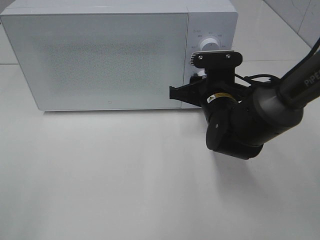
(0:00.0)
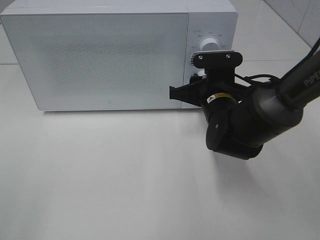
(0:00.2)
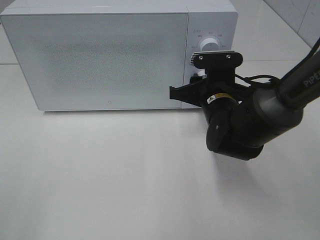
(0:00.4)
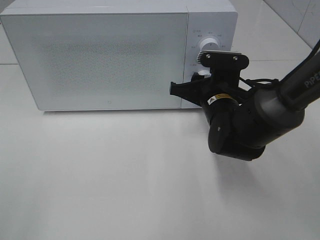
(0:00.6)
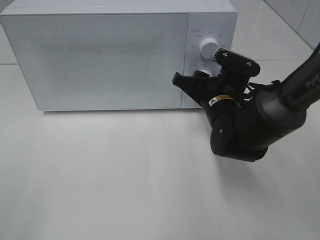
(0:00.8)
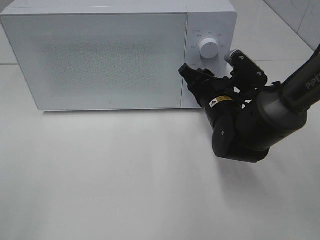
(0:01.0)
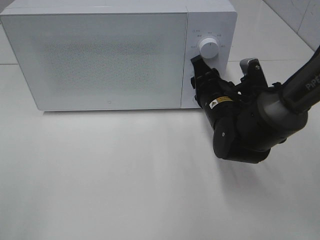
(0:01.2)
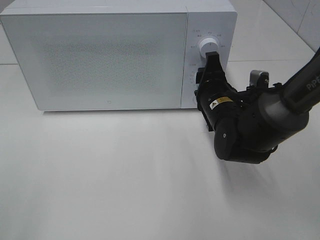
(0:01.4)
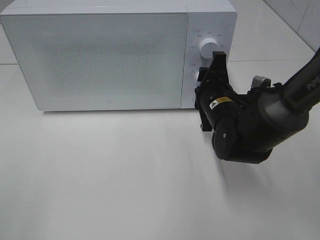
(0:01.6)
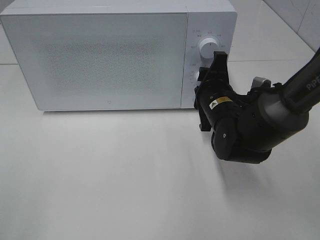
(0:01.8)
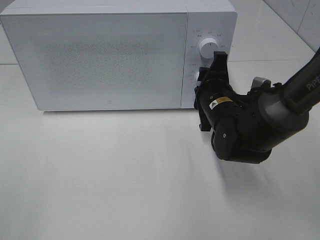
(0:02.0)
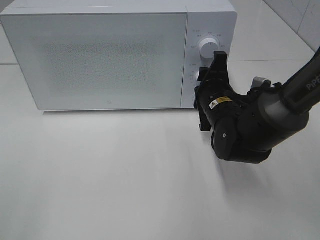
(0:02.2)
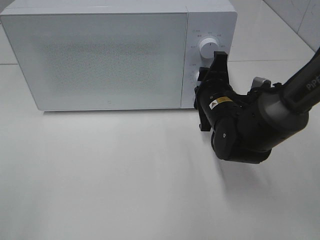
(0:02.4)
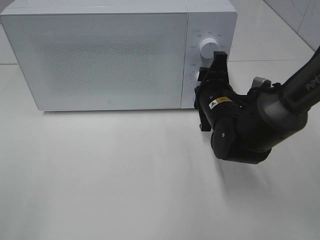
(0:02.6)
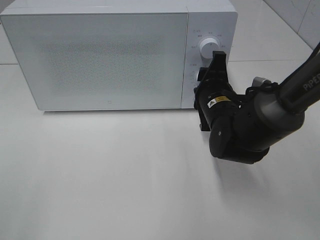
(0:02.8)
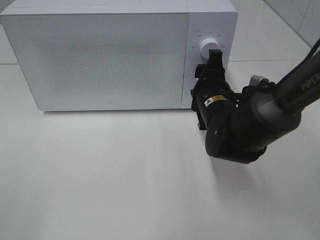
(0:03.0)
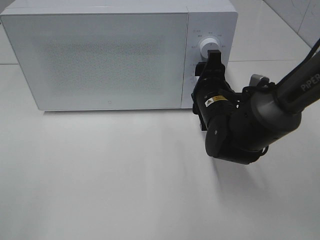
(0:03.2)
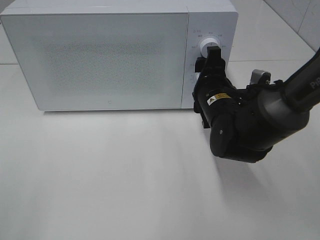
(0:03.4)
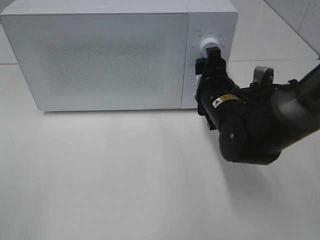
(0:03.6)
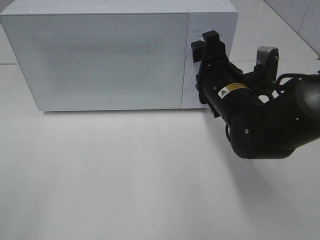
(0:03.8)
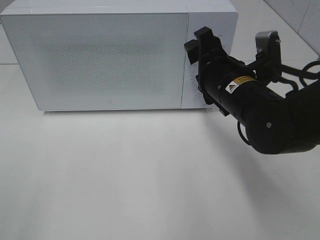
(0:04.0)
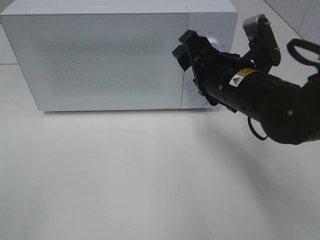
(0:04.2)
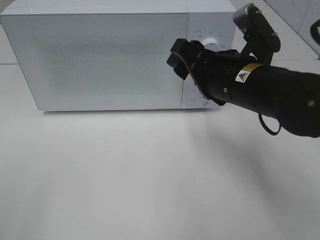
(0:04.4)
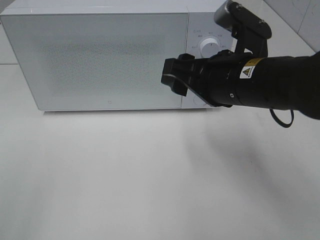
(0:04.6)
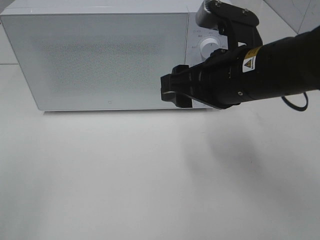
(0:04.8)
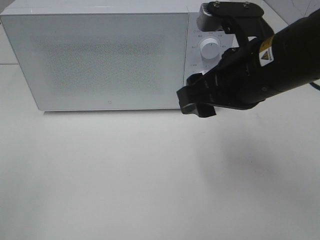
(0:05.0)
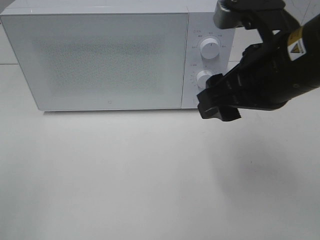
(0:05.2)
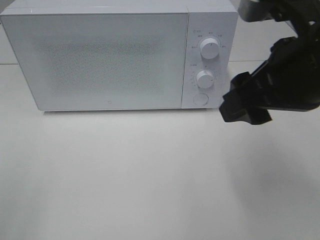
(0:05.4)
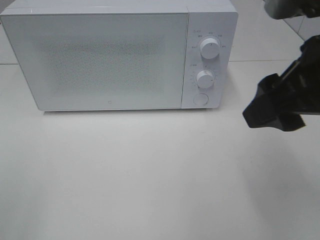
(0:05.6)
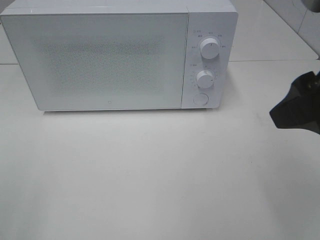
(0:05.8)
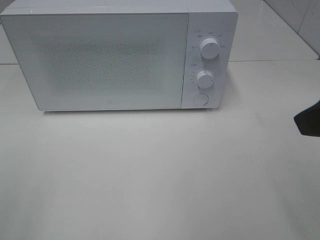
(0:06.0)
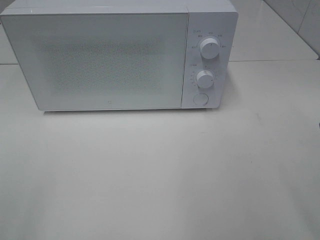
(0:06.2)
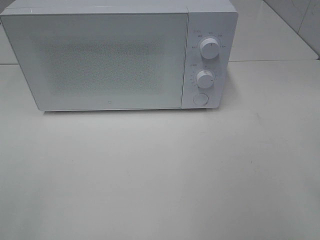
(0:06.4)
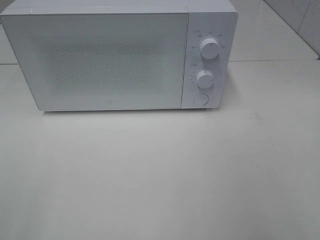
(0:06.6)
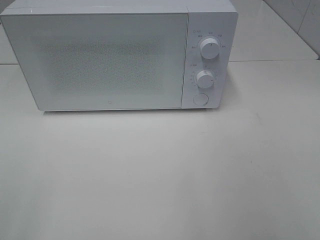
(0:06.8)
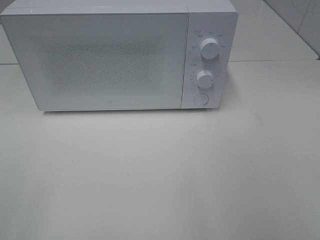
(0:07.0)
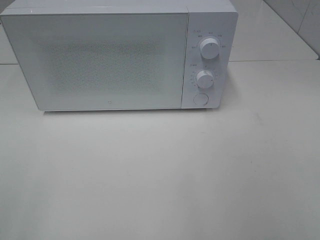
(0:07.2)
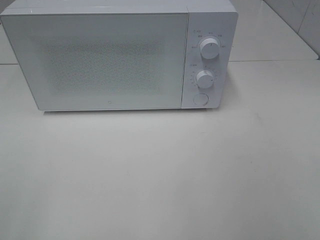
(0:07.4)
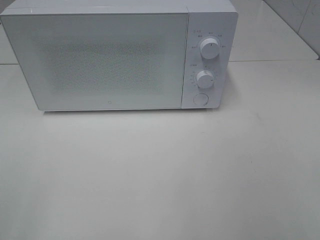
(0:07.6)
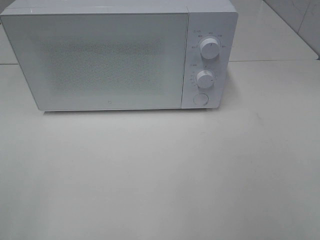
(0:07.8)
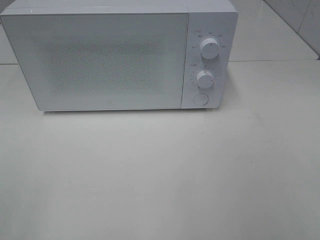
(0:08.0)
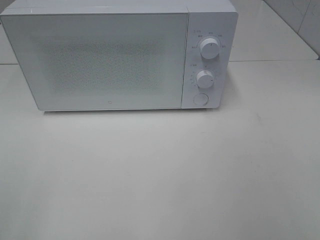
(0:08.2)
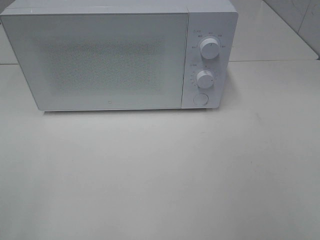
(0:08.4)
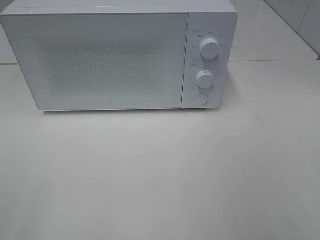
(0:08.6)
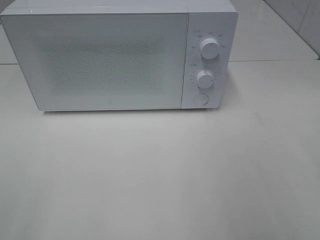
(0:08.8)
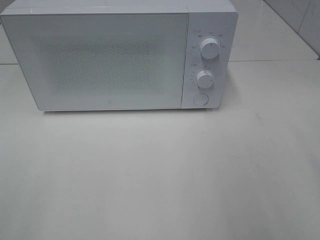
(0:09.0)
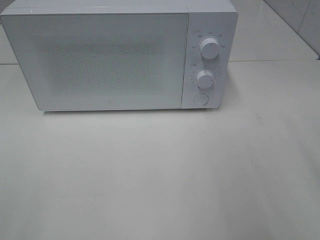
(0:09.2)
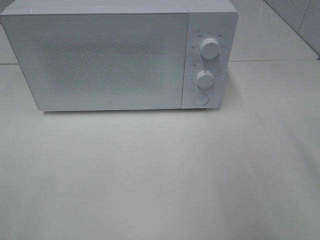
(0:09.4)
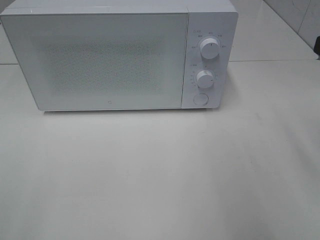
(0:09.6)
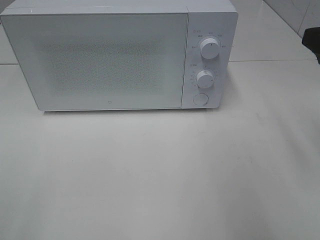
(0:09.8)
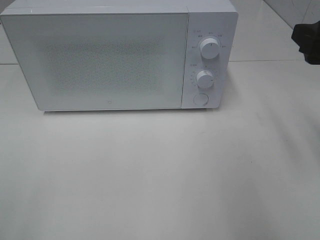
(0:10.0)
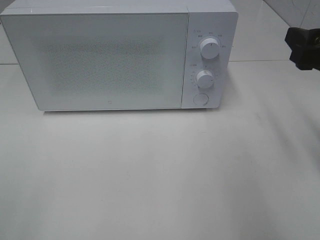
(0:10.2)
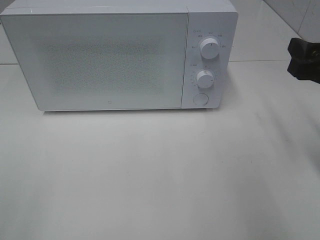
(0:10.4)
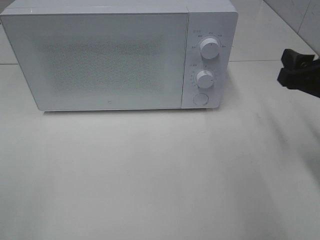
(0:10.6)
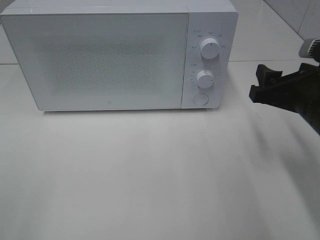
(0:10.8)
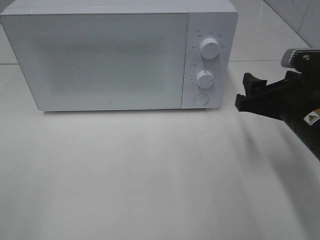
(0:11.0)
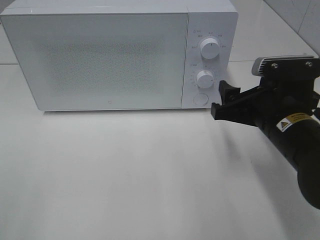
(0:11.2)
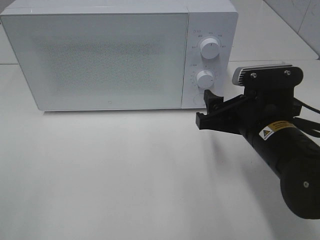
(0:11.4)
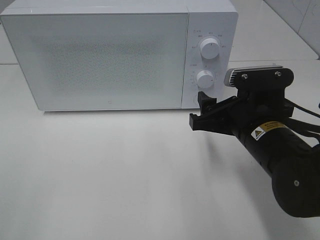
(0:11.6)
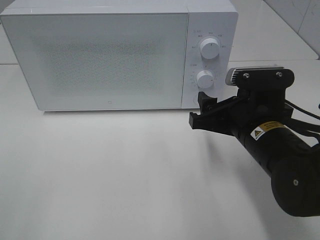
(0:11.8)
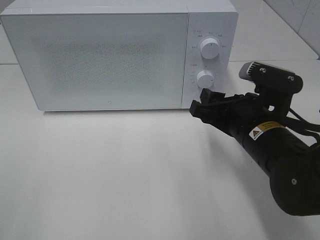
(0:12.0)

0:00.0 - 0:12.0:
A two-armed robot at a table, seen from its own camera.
Task of the whole recording: Heat the burger.
Step, 0:00.0 - 0:03.2: Right hand: twist timer button.
0:01.6 - 0:03.0: The two grippers keep their place.
0:03.0 - 0:04.4: The right gripper heads upward and backward, covering about 10 cm.
0:04.4 - 0:06.0: The right gripper goes about 20 cm backward, upward and to the right.
0:06.0 - 0:07.6: The right gripper goes approximately 15 cm backward and to the right.
0:09.0 - 0:10.4: The right gripper travels forward and downward by about 15 cm.
0:10.4 - 0:12.0: The right gripper travels to the left and downward by about 15 cm.

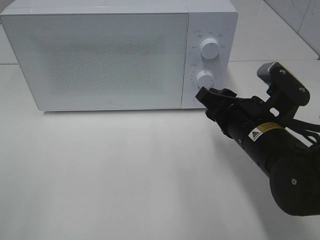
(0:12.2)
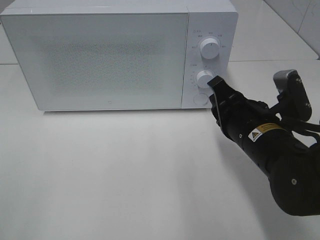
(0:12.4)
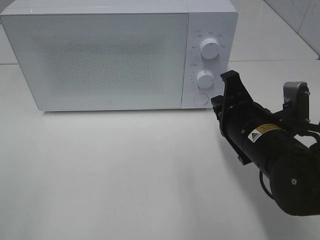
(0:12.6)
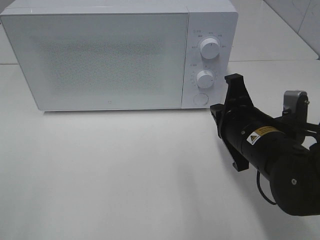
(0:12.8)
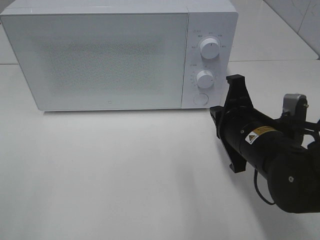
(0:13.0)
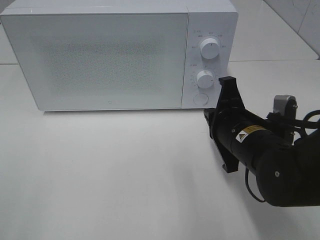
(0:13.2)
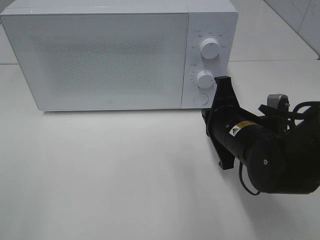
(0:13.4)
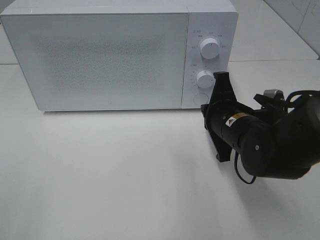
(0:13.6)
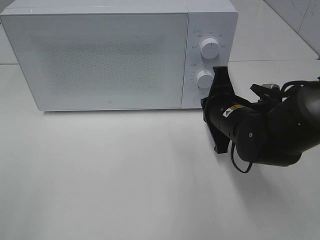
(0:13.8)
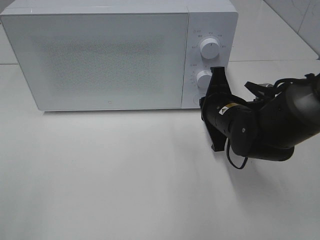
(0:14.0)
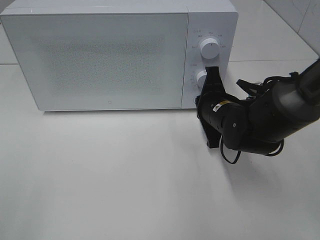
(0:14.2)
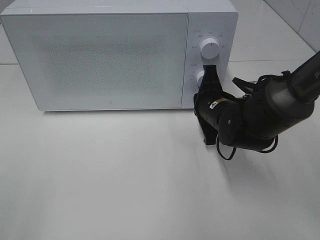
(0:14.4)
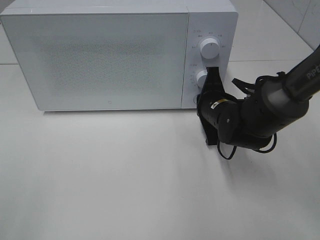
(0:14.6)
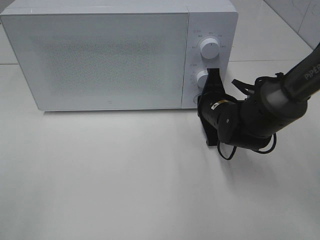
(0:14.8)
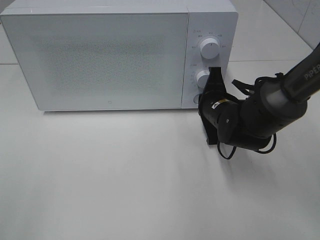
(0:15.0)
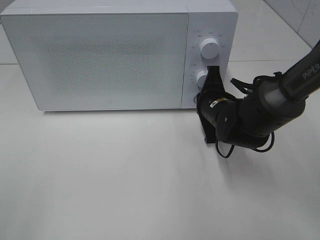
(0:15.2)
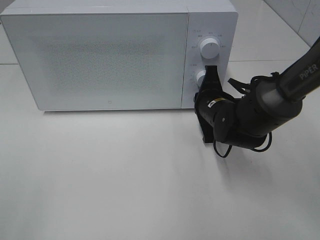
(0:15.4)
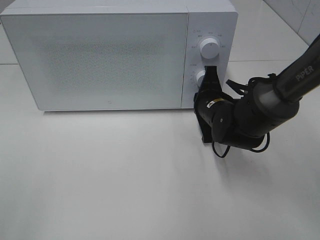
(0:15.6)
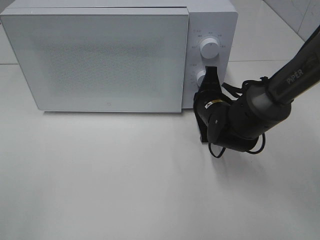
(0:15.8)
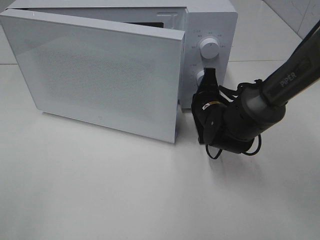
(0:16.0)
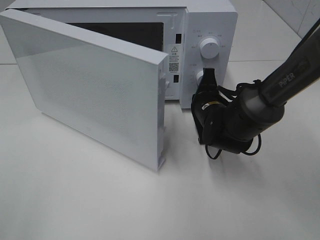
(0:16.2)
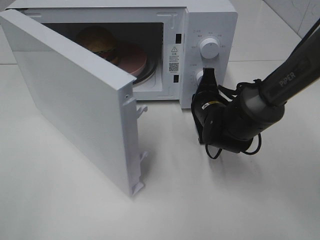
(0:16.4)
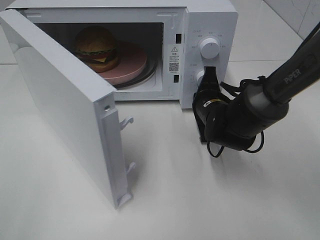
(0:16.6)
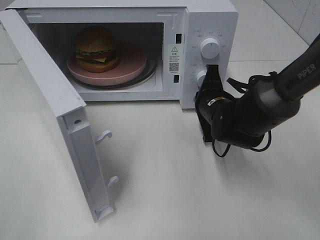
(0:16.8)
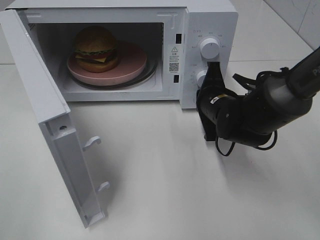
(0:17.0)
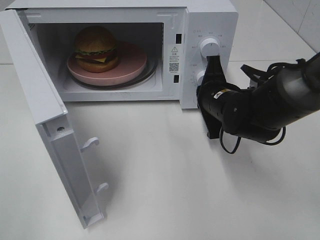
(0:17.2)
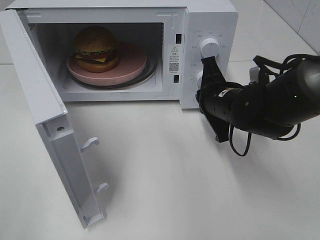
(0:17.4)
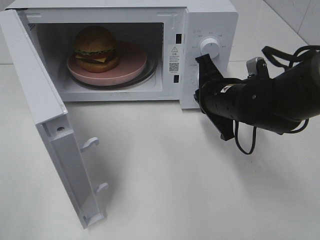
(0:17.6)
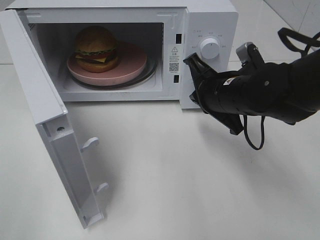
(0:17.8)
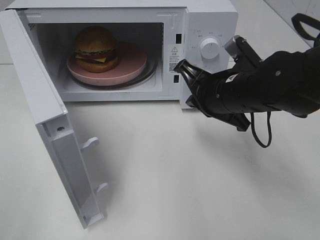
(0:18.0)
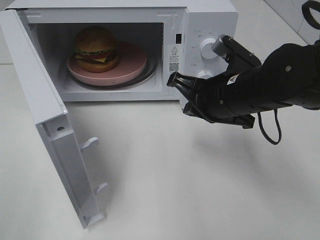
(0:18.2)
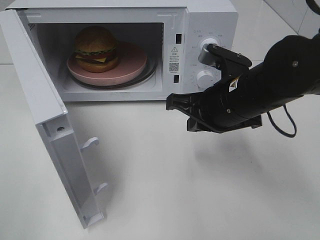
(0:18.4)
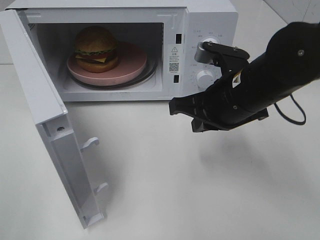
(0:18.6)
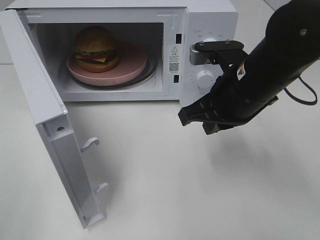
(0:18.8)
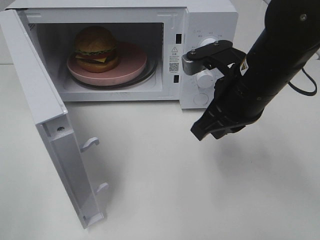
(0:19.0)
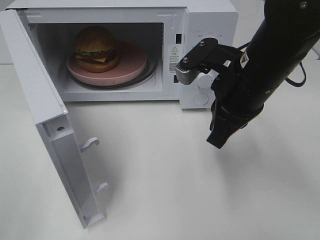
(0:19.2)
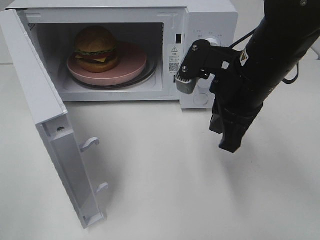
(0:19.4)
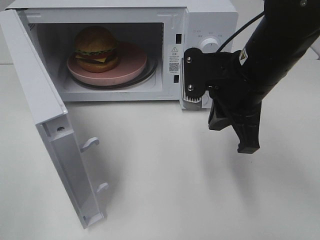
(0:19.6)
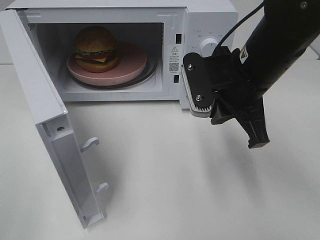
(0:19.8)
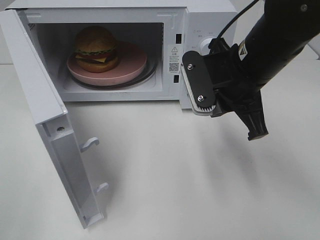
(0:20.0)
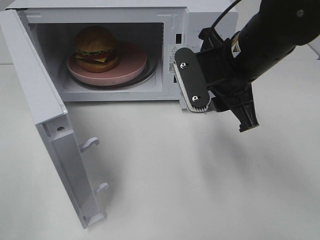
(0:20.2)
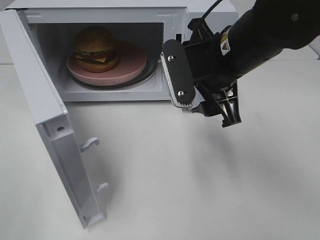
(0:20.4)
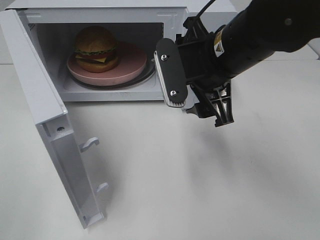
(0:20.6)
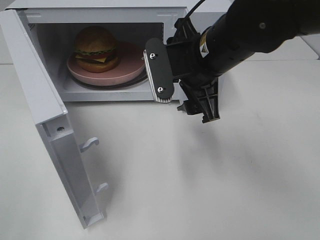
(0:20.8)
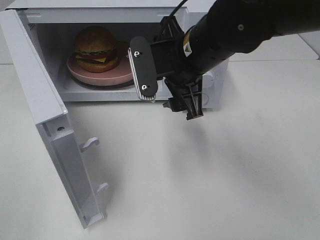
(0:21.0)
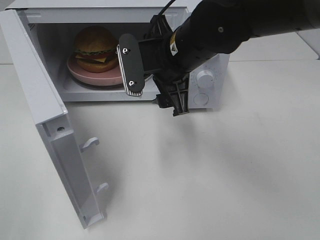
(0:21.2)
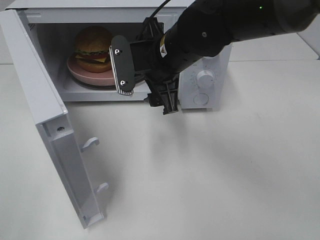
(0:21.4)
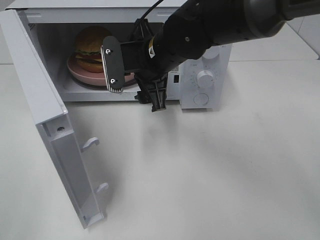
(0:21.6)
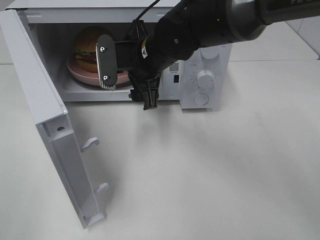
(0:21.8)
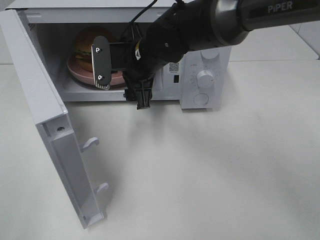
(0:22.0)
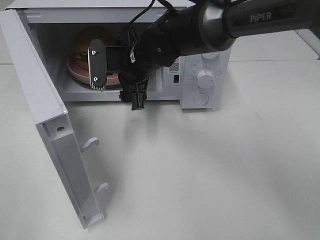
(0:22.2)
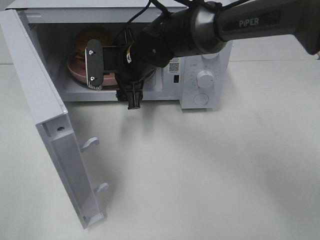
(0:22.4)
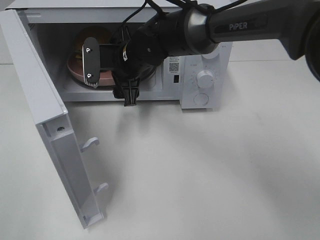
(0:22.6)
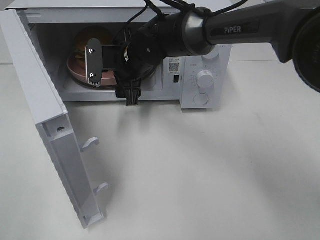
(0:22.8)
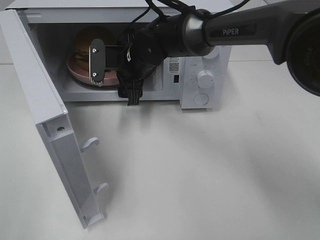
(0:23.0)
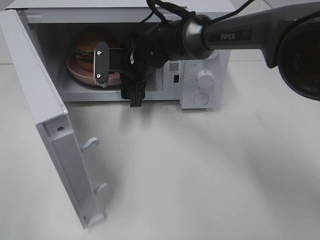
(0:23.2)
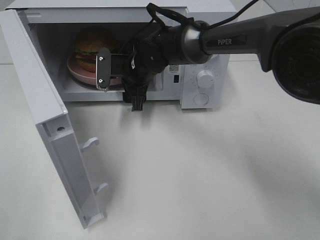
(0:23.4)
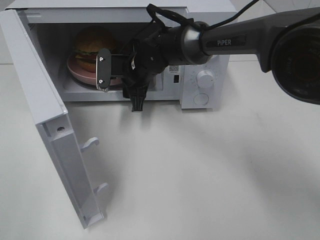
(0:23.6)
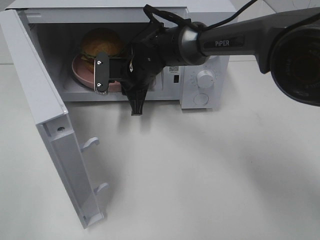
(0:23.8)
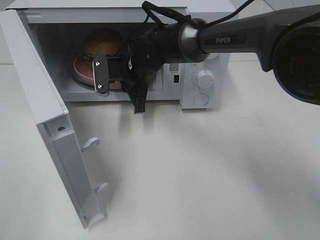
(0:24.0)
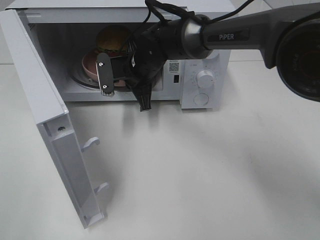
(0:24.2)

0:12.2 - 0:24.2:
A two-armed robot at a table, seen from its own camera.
Task of the whole recording: Heat the burger.
Step, 0:12.2 - 0:17.2: Right hand: press the switch.
Step, 0:17.4 - 0:24.2: Right hand: grab the plate with the hamburger.
0:12.2 - 0:13.8: The right gripper heads forward, covering some 5 cm, and closes its fingers.
0:13.8 - 0:15.2: The right gripper goes approximately 5 cm forward.
0:16.6 - 0:18.2: The right gripper goes about 10 cm upward and backward.
0:18.2 - 0:19.8: The right gripper shifts roughly 5 cm upward.
0:19.8 - 0:21.2: The right gripper goes roughly 10 cm to the left, and opens up.
0:21.2 - 0:22.6: The right gripper moves forward, to the left and downward, roughly 15 cm.
0:22.6 - 0:24.2: The right gripper closes its fingers.
